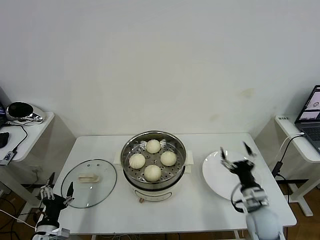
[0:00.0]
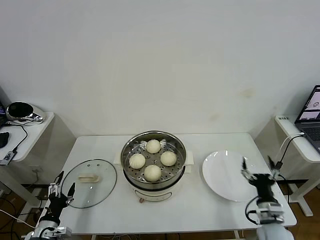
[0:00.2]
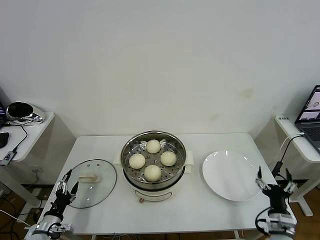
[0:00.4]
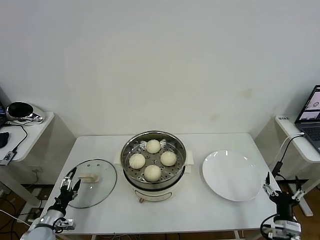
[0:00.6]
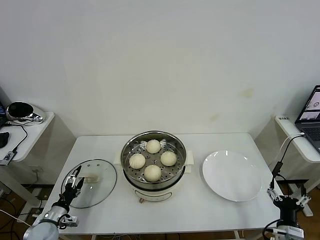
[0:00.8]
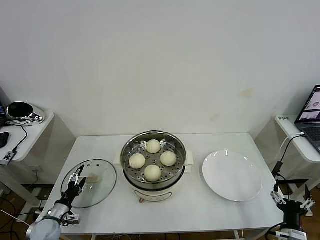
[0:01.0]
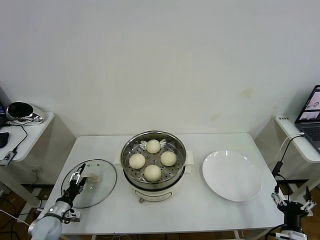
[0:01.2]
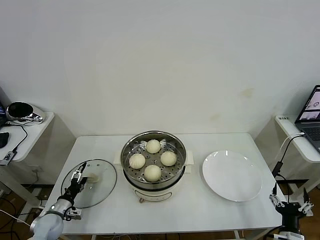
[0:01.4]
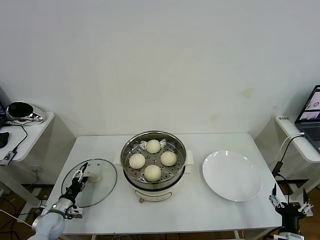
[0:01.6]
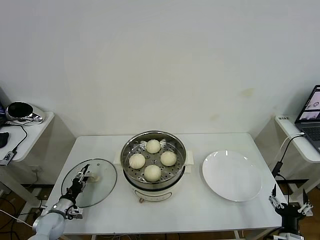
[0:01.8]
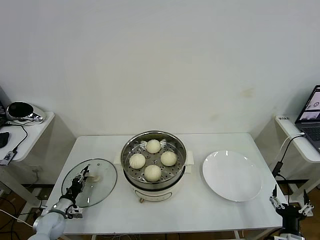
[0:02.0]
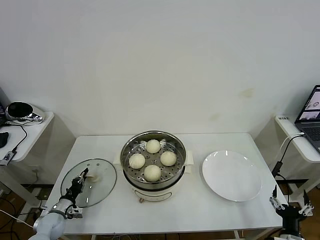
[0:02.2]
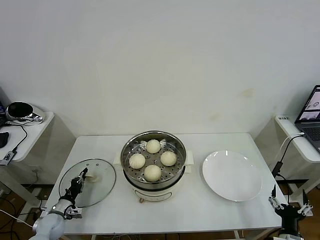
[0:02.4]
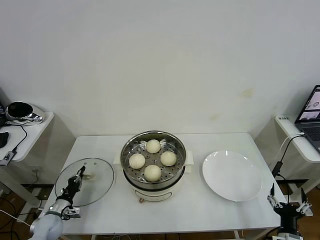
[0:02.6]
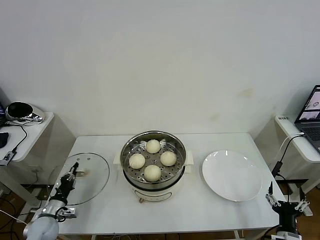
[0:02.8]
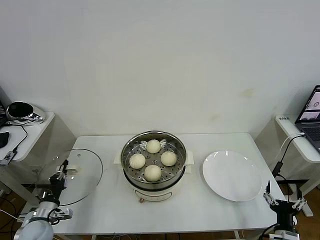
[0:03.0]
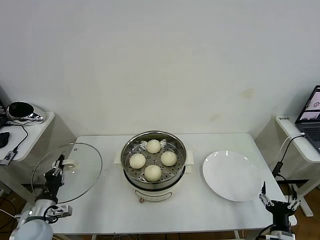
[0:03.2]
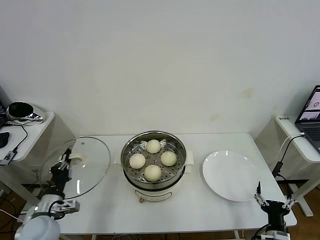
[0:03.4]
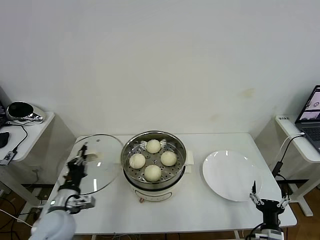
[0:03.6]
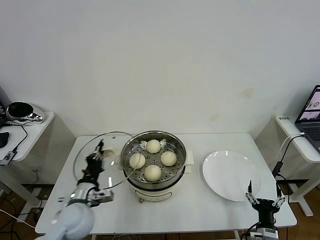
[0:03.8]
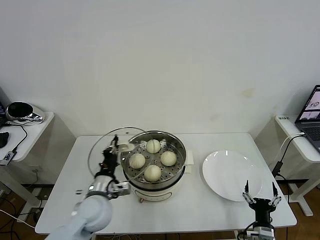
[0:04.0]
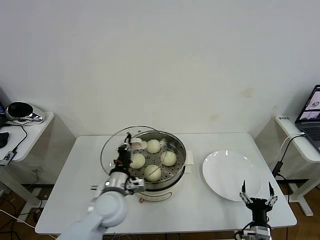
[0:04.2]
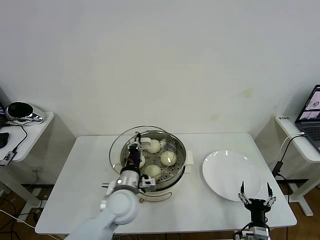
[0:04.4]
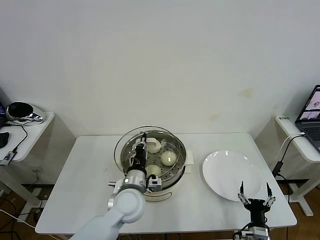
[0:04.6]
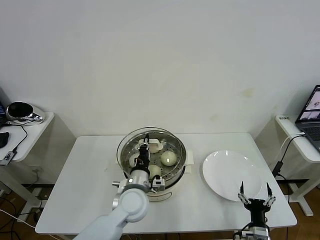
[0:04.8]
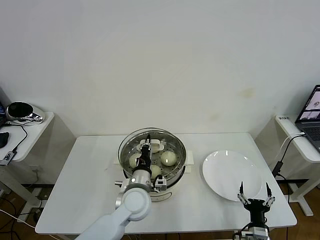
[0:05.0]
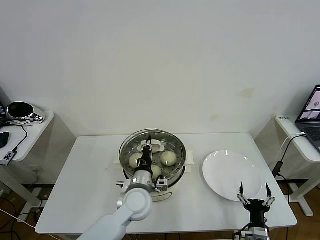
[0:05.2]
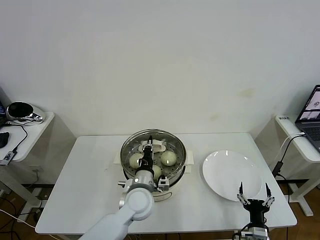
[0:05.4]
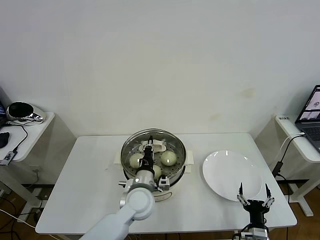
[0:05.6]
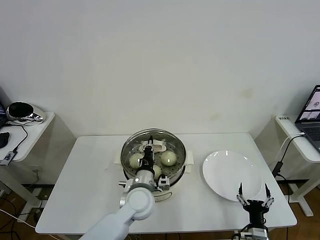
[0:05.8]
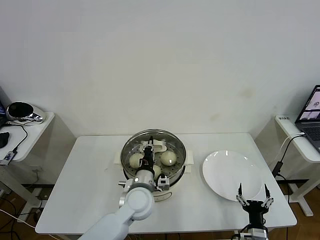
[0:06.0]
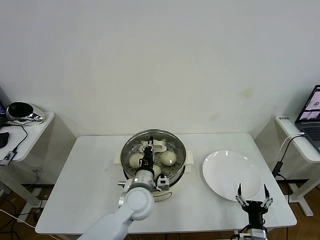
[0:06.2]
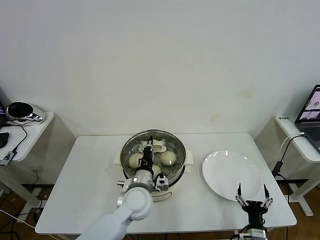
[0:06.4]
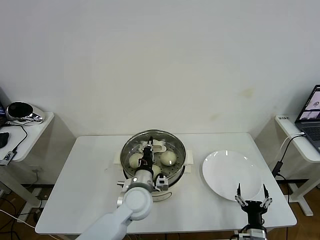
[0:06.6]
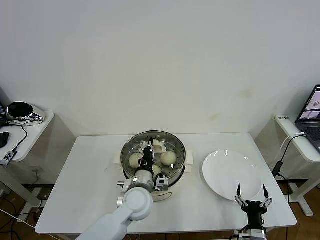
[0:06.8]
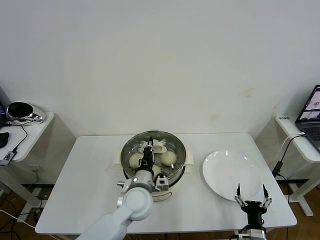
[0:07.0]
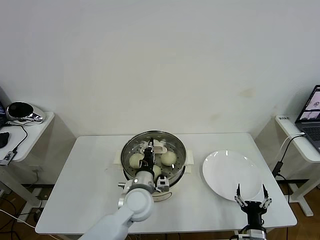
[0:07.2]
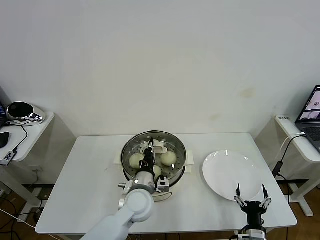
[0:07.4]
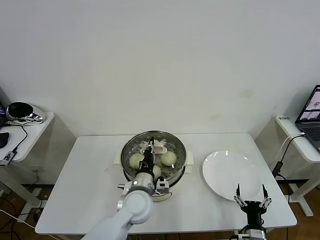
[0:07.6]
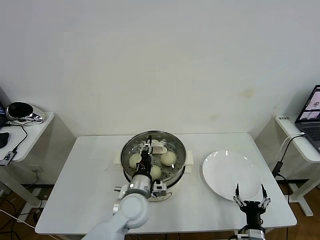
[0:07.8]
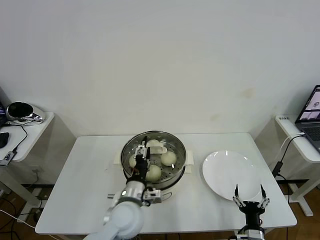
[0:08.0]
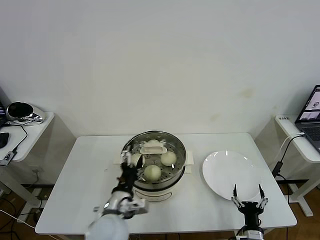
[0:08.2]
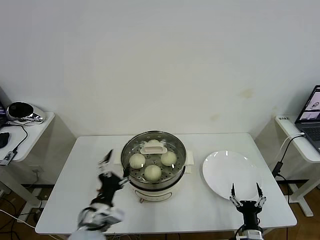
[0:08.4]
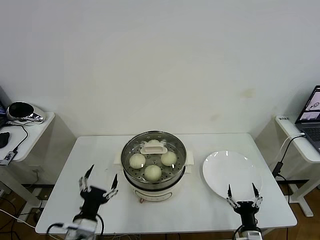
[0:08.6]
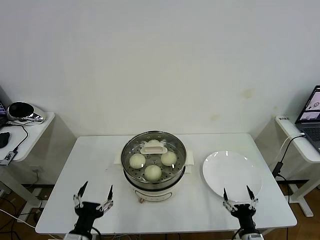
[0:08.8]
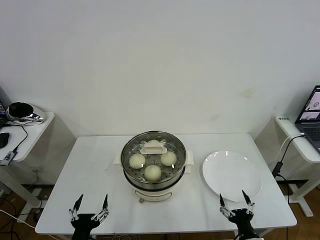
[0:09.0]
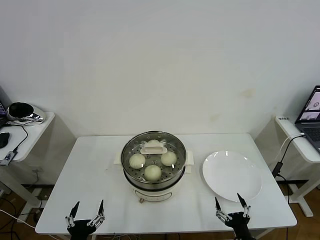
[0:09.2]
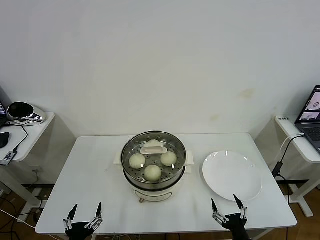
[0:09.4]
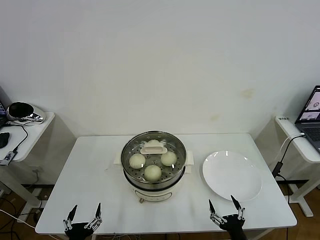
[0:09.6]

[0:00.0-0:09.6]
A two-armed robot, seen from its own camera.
Task of the whole recording: take steamed baozi put them in steamer then cover it.
Step, 0:00.0 to 0:02.4: Grasp the pot lid with left gripper.
Step, 0:02.6 to 0:08.2: Place the pot lid on the steamer with left gripper.
0:00.0 to 0:01.6: The right gripper moves backward, to the right and downward, approximately 15 cm, while the left gripper moves forward, downward and to the left, approximately 15 cm.
0:01.6 to 0:03.2: The left gripper travels upward and backward by some 10 cm, and closes its fingers.
0:03.2 to 0:04.8: The left gripper travels to the right by roughly 30 cm; the right gripper shifts by about 5 cm.
0:04.8 to 0:06.4: The grippers stay close to where they were, moving slightly.
0:06.4 to 0:08.0: The left gripper opens up.
0:08.0 to 0:09.6: The right gripper heads backward, covering some 5 cm. The left gripper goes some 25 cm backward, to the left and downward, and opens up.
